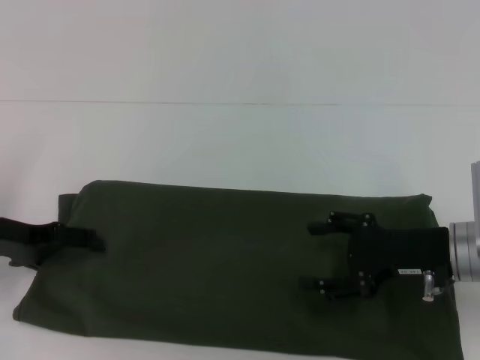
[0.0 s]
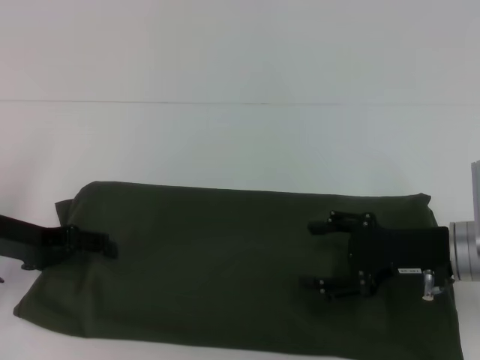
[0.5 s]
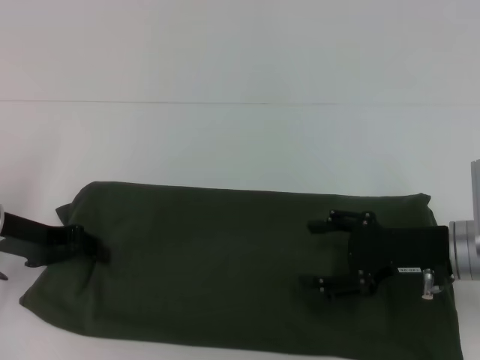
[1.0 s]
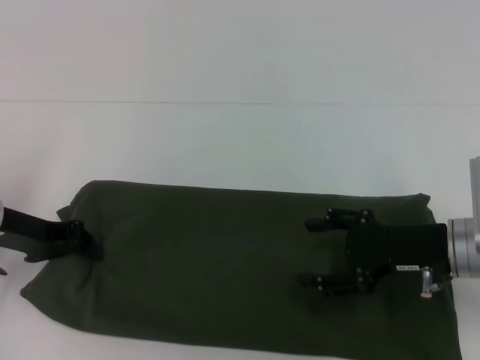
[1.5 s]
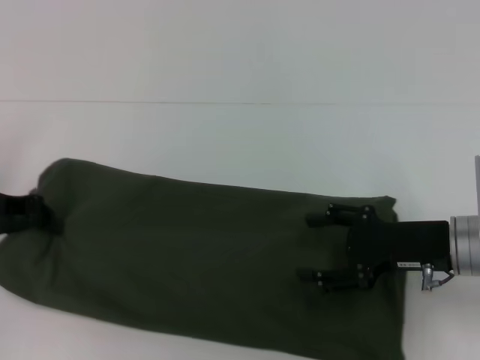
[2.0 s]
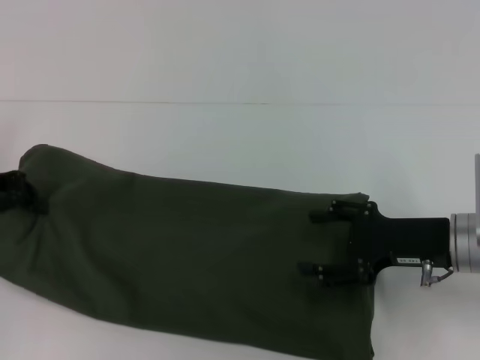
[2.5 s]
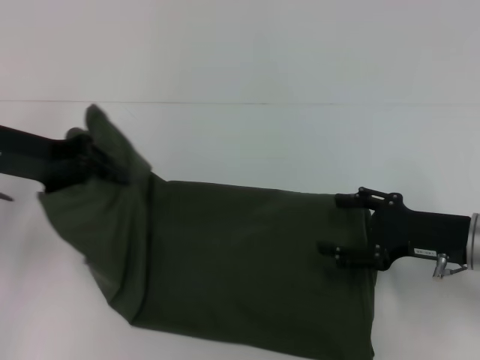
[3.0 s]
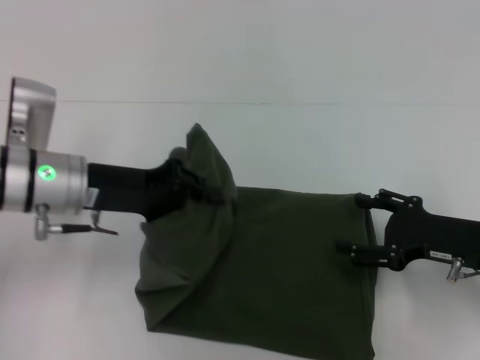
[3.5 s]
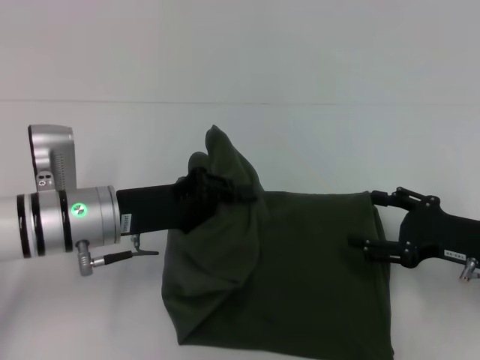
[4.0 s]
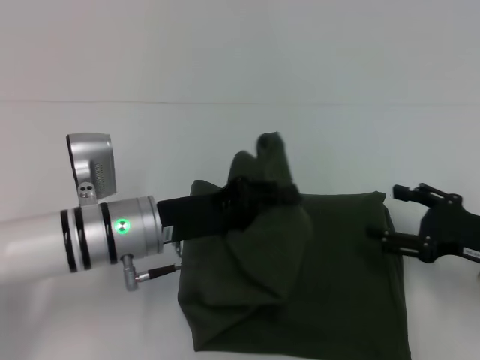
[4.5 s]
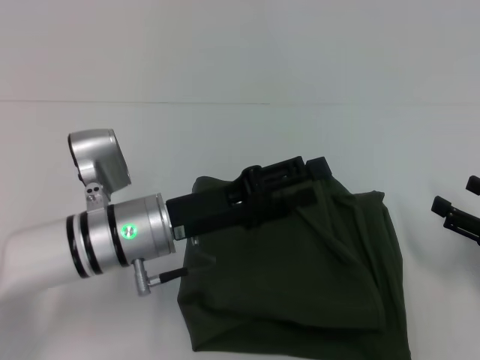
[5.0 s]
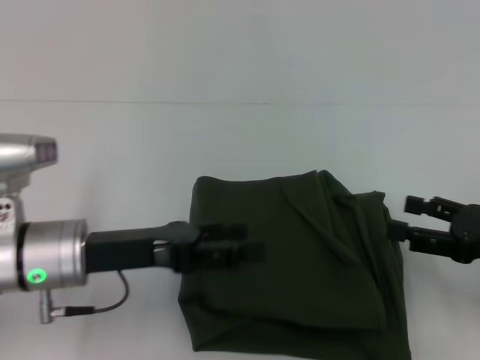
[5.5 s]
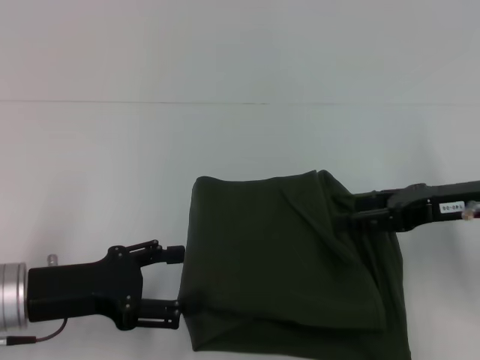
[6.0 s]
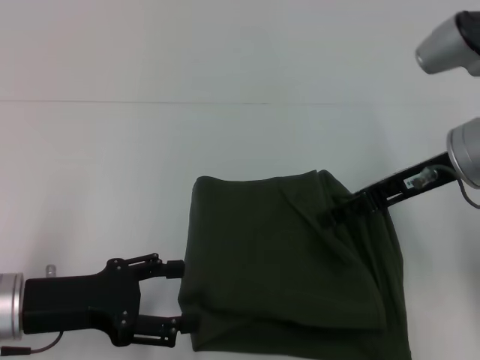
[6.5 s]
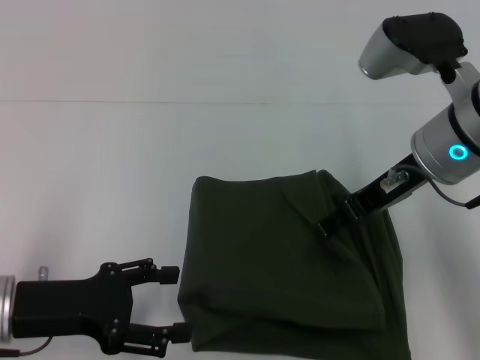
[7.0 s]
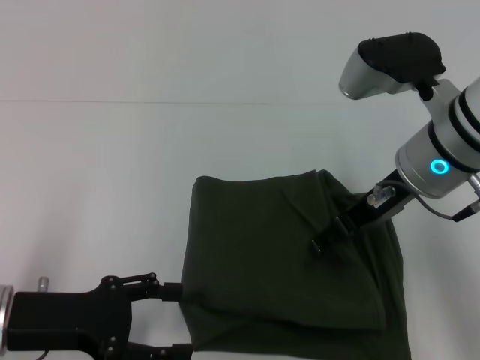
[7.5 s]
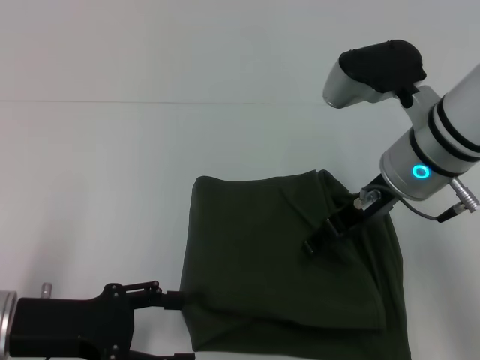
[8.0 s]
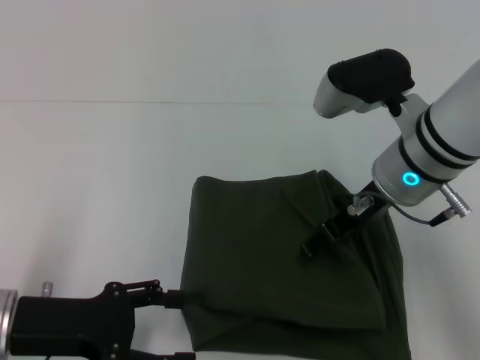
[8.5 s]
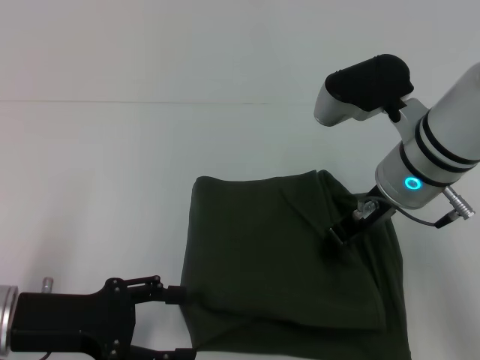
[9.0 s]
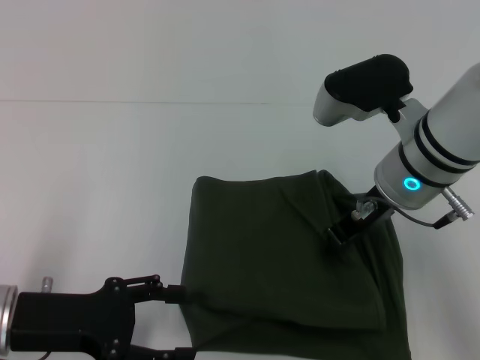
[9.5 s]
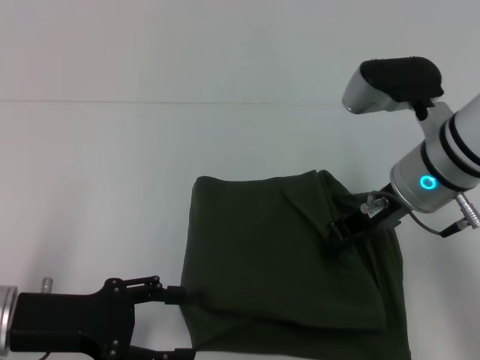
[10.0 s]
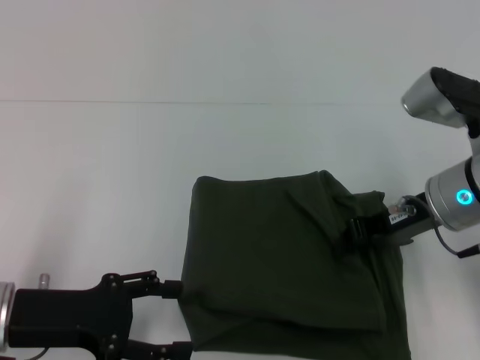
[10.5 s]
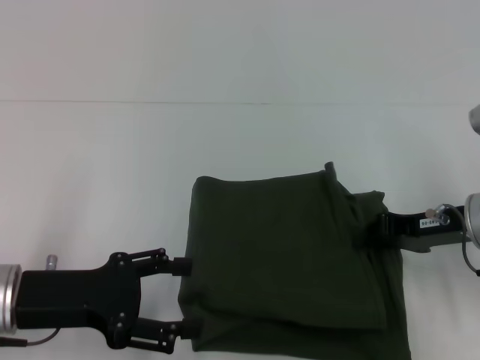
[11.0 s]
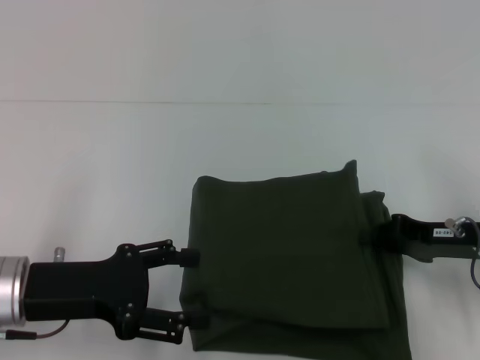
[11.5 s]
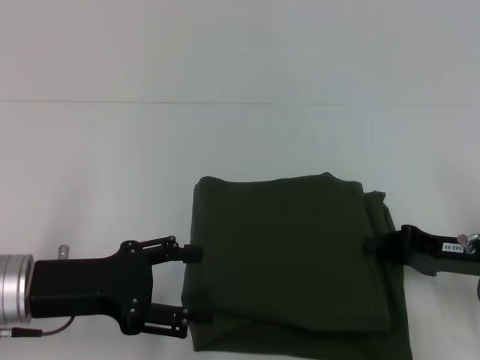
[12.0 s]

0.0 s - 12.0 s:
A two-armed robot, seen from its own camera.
Step, 0.0 s - 4.5 s: Fold the clothes with your left hand.
0.0 s - 2.0 s: The left gripper closes up.
2.0 s - 4.0 s: The right gripper shifts approximately 5 cm to the right, while the left gripper moves to the right, approximately 15 cm.
4.0 s - 6.0 s: The left gripper goes approximately 10 cm backward and to the left, and opens its fingers. Meanwhile the right gripper shifts roughly 10 cm upward.
6.0 s - 8.0 s: The right gripper moves to the left, some 10 cm.
8.0 s - 10.0 s: The right gripper closes up.
10.0 s - 12.0 s: The right gripper heads to the right, downward and backward, covering about 15 cm.

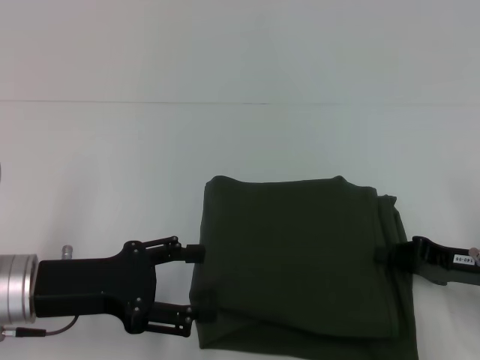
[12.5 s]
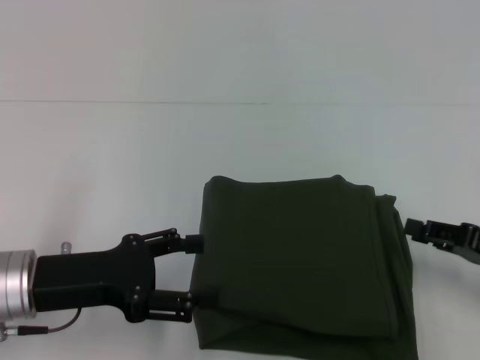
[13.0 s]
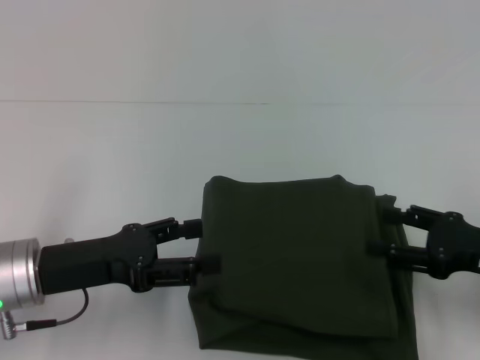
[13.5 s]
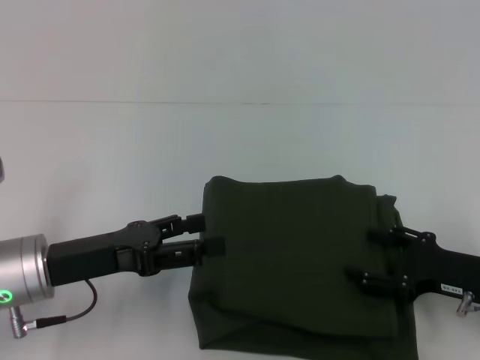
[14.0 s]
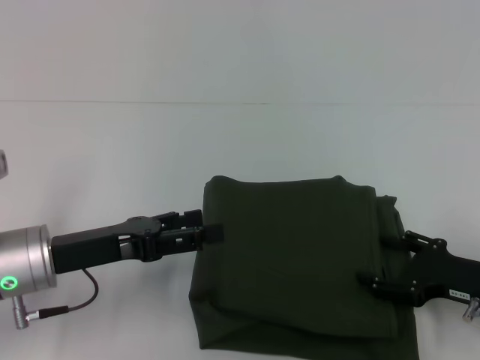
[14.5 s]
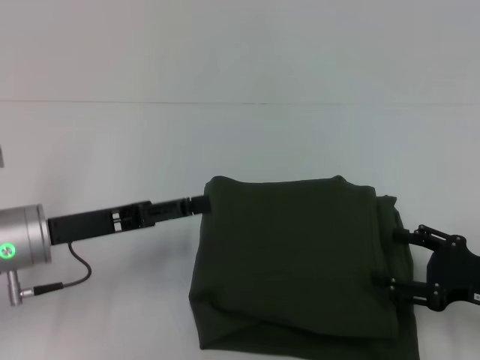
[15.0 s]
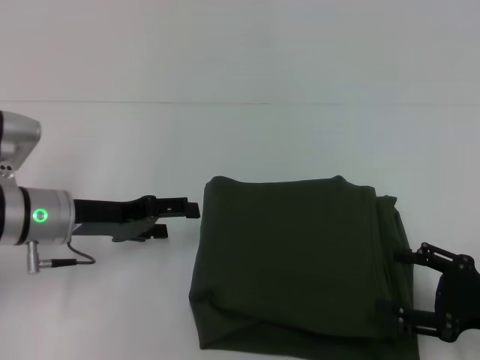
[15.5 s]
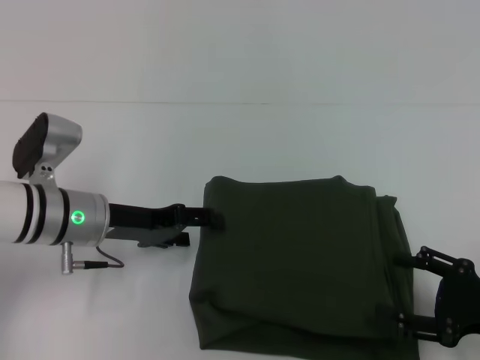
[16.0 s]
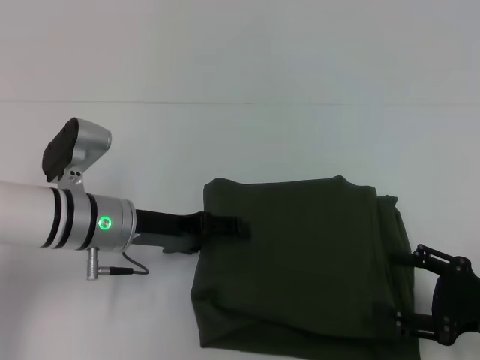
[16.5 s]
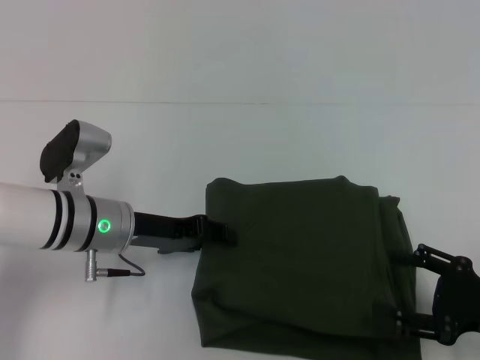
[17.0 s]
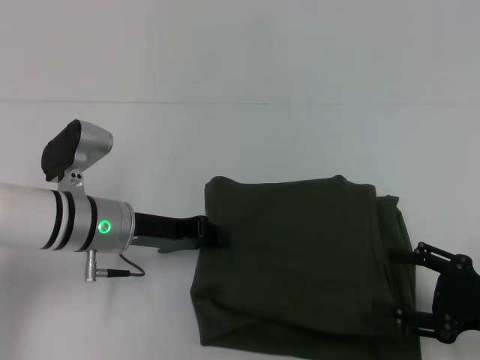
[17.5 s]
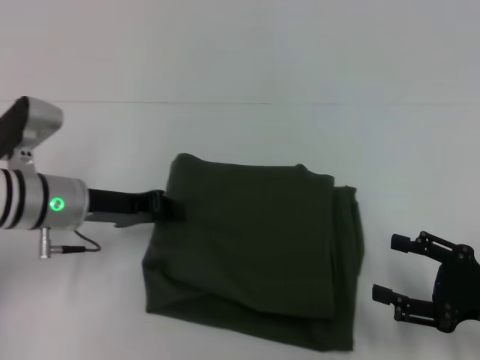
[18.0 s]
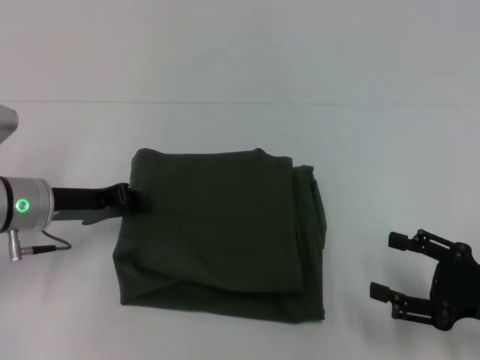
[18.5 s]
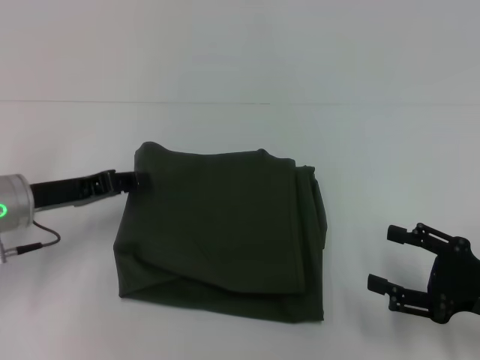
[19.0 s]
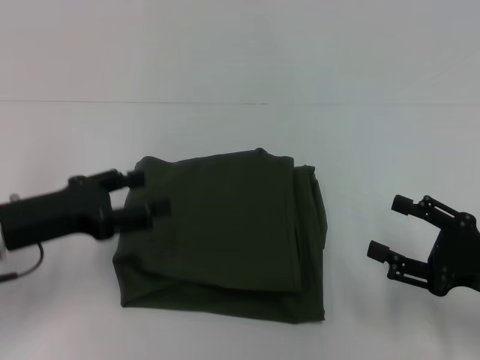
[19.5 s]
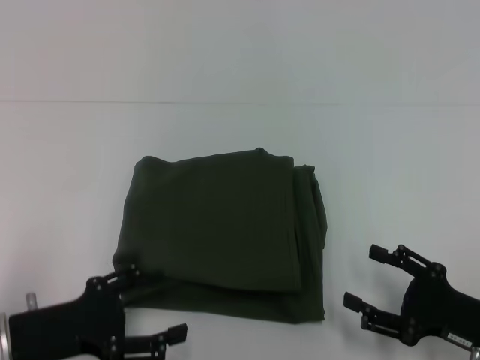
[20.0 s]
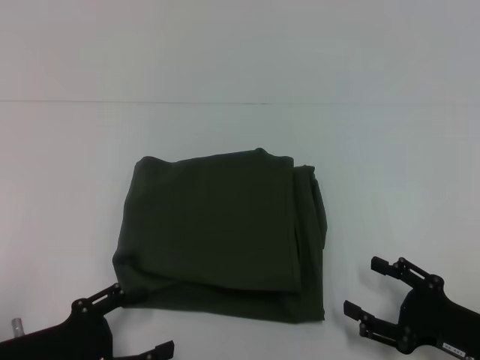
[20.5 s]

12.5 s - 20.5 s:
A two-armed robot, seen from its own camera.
12.5 s - 14.5 s: The right gripper opens its fingers.
14.5 s - 16.5 s: The right gripper shifts by some 5 cm, while the left gripper is displaced forward and to the right by about 10 cm.
16.5 s - 18.5 s: The left gripper is displaced to the left by about 10 cm, and closes.
18.5 s - 20.5 s: The left gripper travels backward by approximately 15 cm, and opens its fingers. The right gripper travels downward by about 5 cm.
